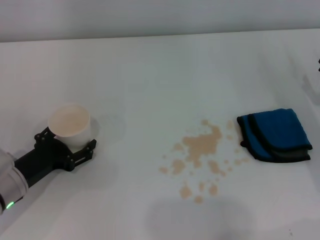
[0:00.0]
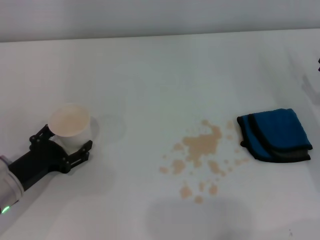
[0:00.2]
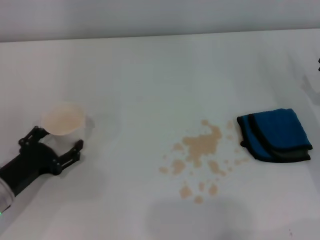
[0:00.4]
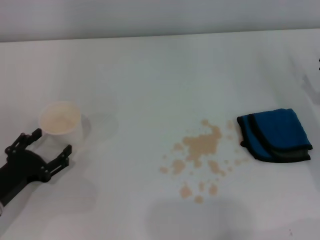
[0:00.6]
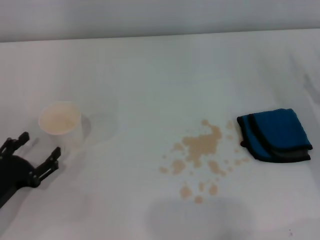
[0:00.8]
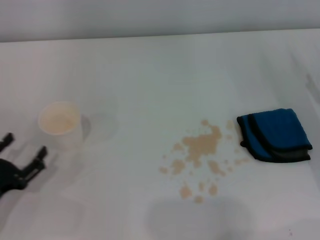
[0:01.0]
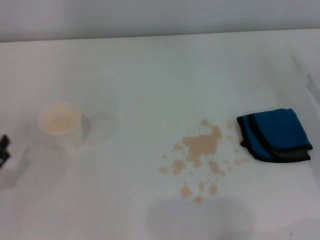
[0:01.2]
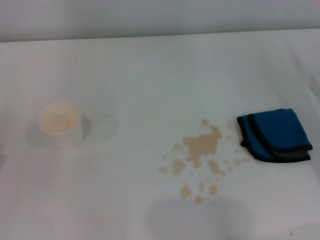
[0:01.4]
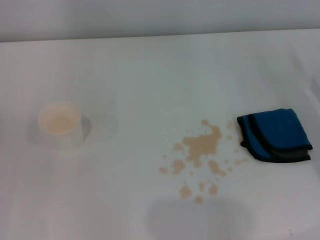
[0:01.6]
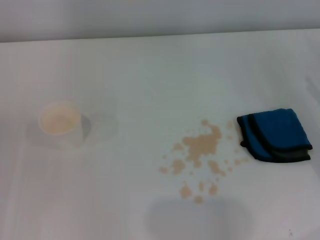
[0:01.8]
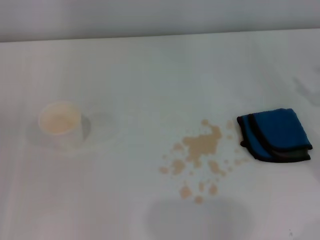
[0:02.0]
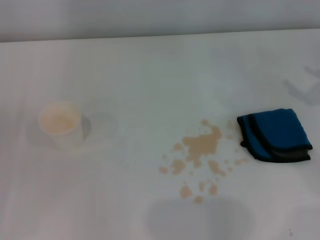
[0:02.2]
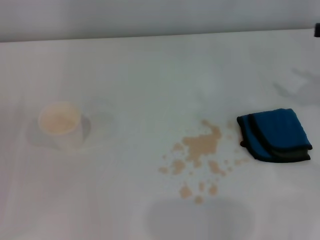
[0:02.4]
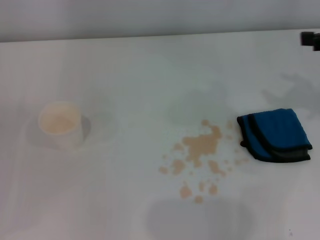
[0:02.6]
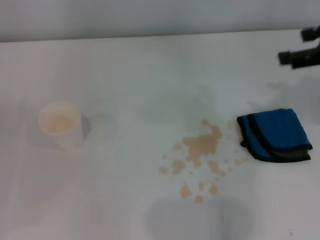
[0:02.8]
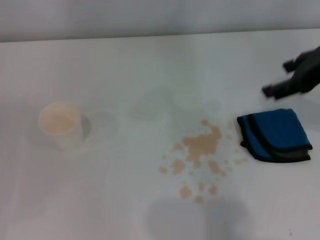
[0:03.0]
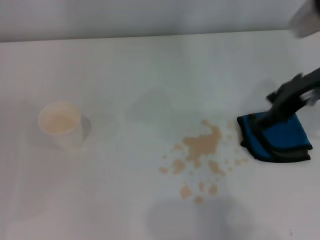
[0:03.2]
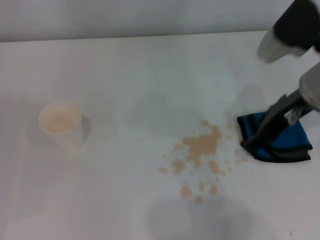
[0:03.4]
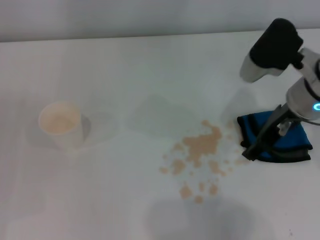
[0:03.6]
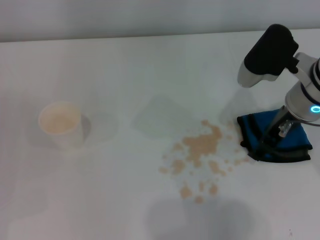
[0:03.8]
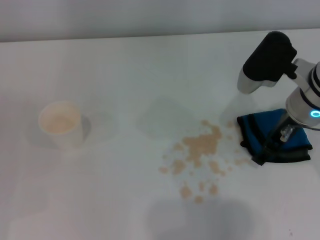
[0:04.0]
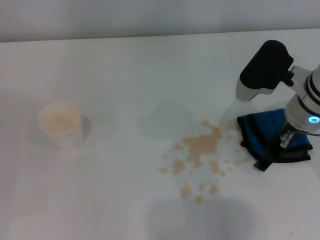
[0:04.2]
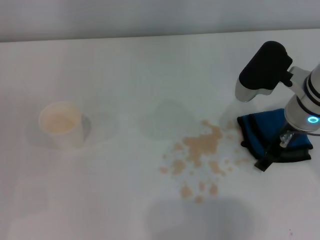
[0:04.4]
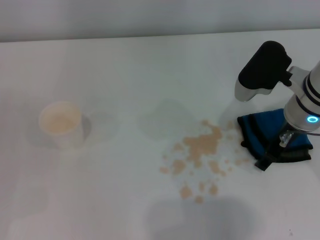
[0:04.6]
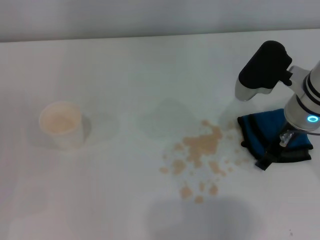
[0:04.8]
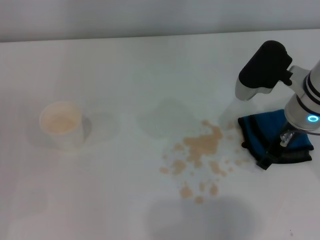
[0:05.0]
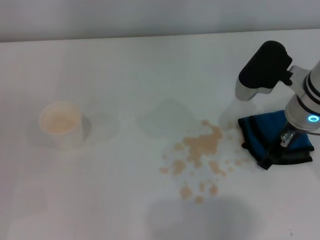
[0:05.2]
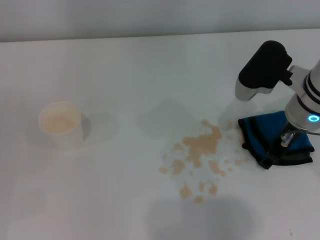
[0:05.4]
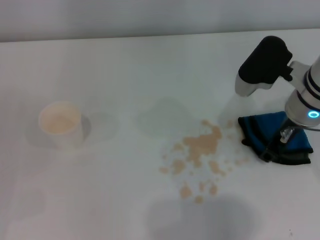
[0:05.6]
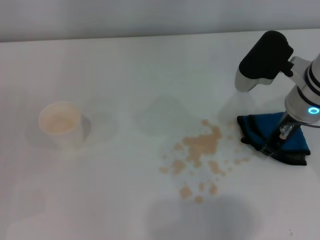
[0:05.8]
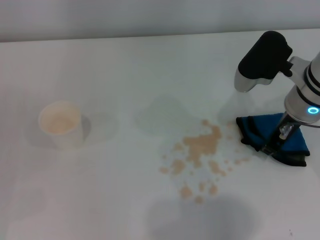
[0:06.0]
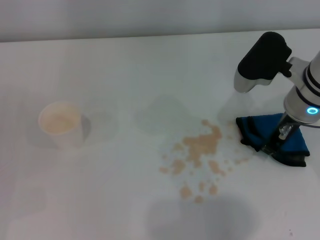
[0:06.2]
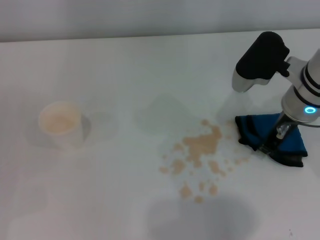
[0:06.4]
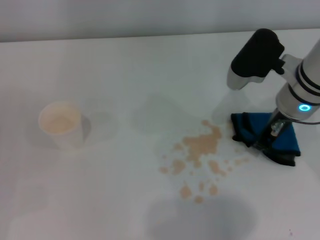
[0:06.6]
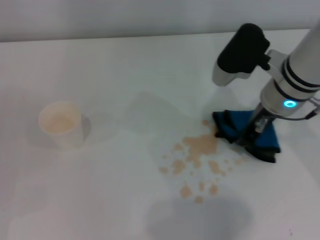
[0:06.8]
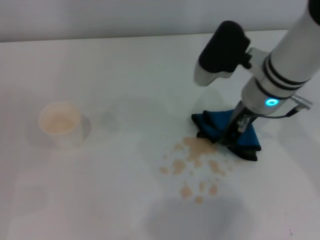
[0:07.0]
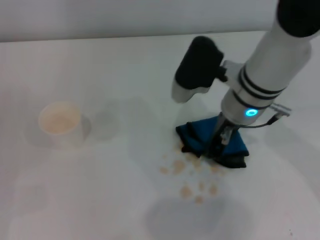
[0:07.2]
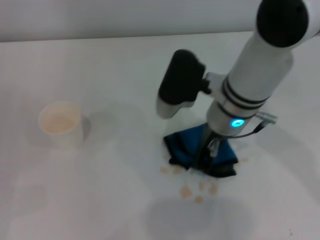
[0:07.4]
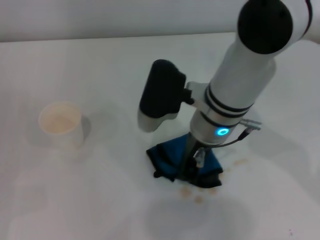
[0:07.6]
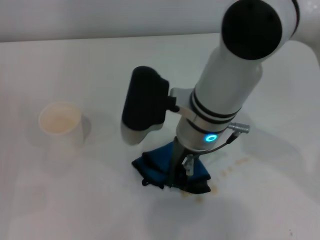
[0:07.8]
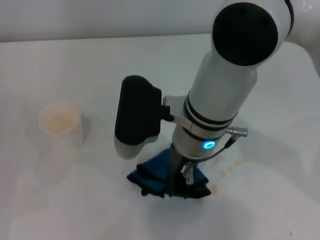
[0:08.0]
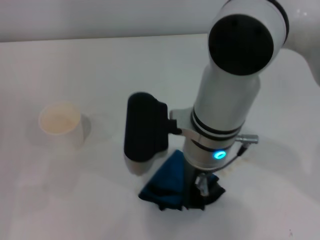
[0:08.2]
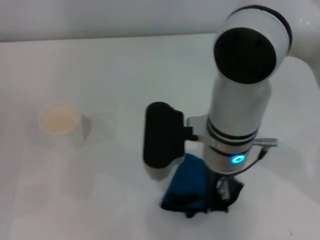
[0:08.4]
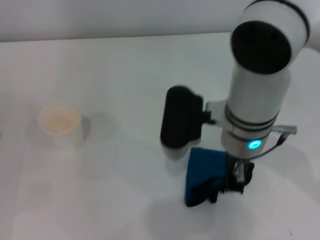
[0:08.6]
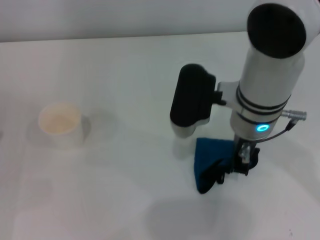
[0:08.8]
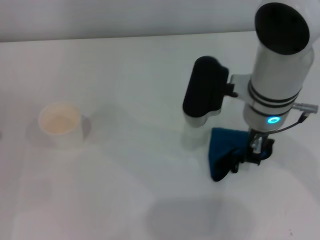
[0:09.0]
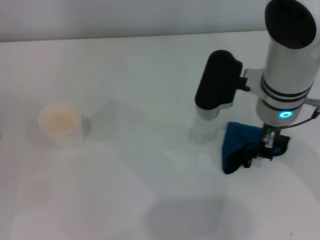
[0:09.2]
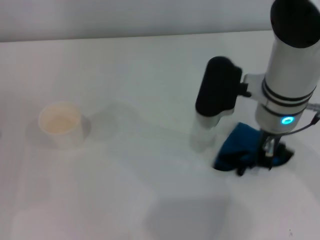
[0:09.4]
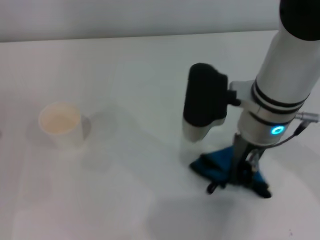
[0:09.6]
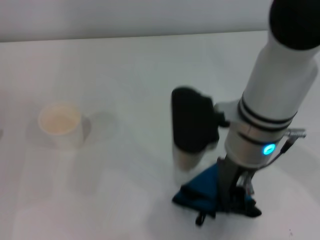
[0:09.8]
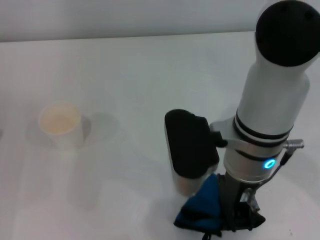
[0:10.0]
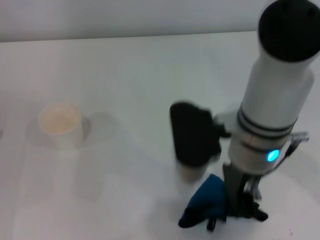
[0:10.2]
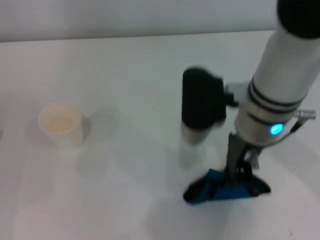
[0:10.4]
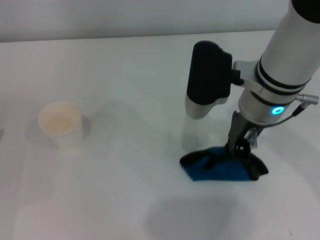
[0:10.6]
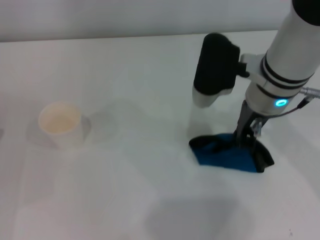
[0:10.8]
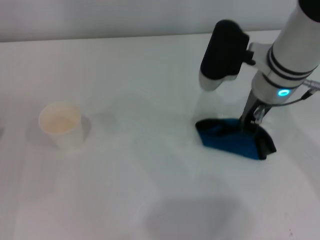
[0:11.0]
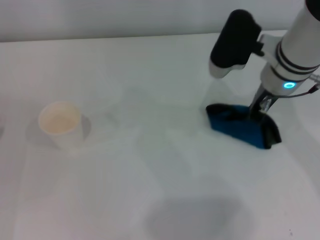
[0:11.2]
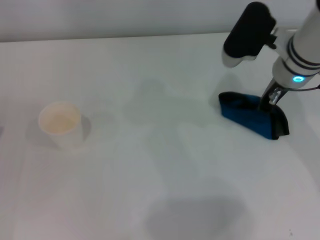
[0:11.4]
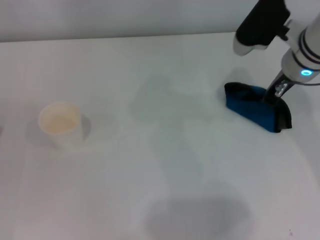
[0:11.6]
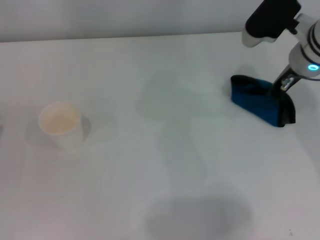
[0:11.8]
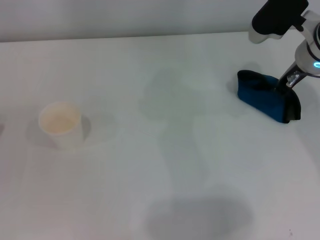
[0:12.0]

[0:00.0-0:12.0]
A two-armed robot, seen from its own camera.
Step, 0:00.0 to 0:05.8: Grasp the rag with the right gripper.
0:00.0 to 0:01.6: The left gripper heads to the left and backward, covering some 15 cm.
0:01.6 to 0:03.0: The right gripper shifts about 20 cm upward and to the left.
0:03.0 to 0:04.4: The right gripper travels downward and to the left by about 15 cm.
0:04.4 to 0:06.0: The right gripper closes its fingers.
0:06.0 to 0:07.6: The right gripper travels to the left by approximately 15 cm.
0:07.6 to 0:09.0: The right gripper heads to the right, covering approximately 5 cm.
0:10.4 to 0:12.0: The right gripper shifts about 15 cm to the right and forward.

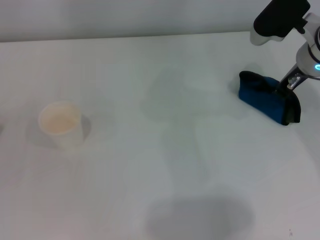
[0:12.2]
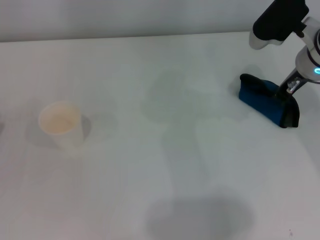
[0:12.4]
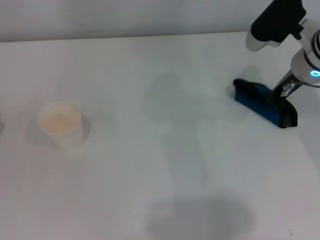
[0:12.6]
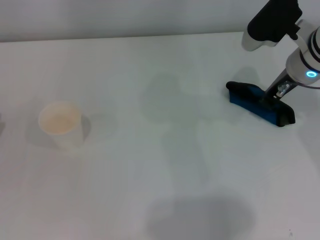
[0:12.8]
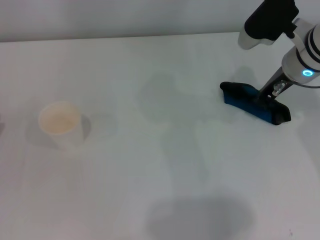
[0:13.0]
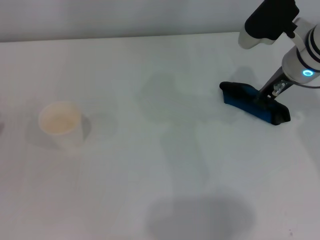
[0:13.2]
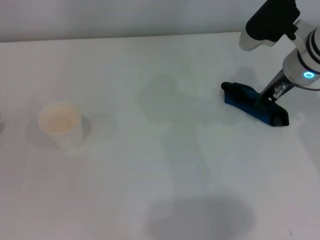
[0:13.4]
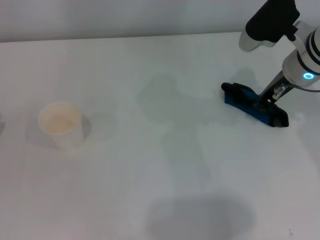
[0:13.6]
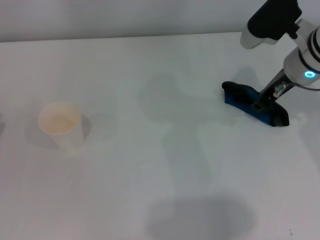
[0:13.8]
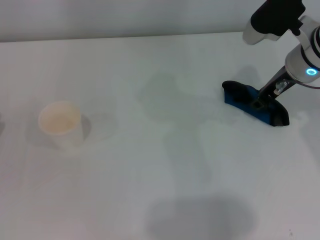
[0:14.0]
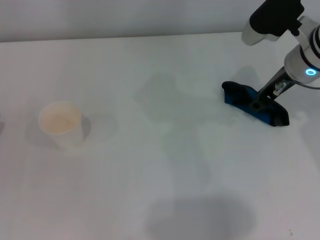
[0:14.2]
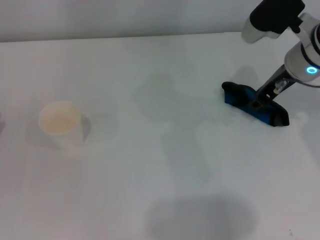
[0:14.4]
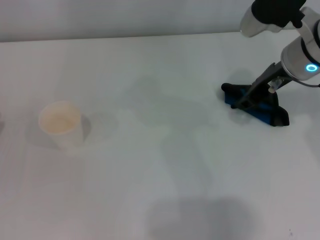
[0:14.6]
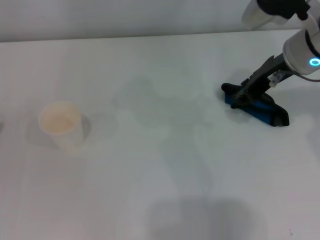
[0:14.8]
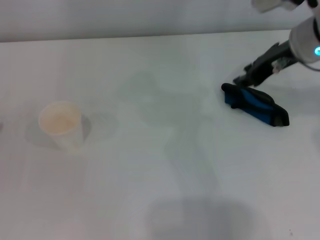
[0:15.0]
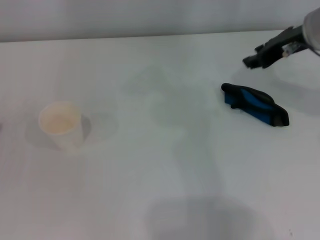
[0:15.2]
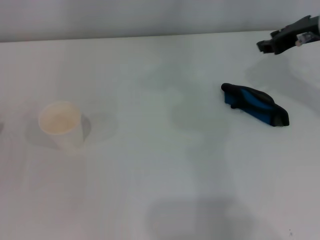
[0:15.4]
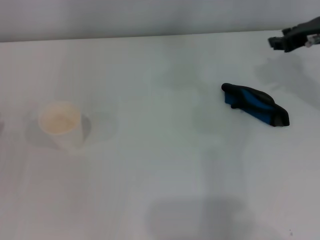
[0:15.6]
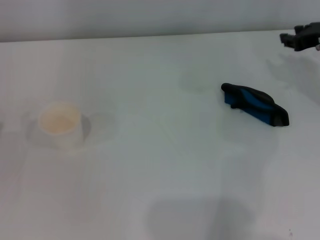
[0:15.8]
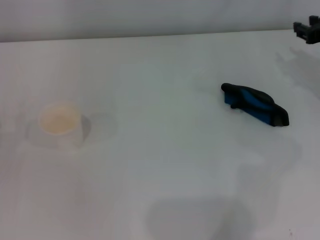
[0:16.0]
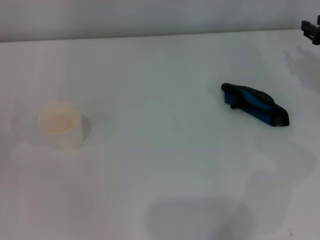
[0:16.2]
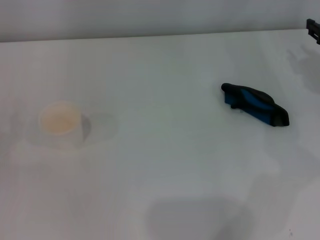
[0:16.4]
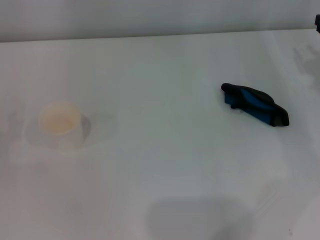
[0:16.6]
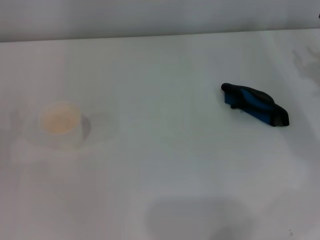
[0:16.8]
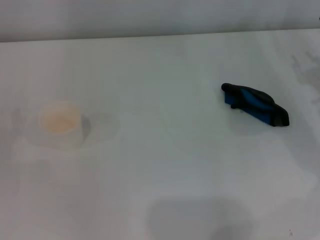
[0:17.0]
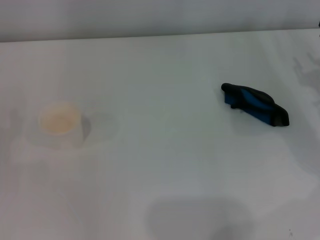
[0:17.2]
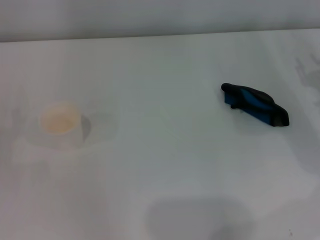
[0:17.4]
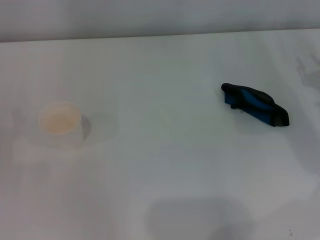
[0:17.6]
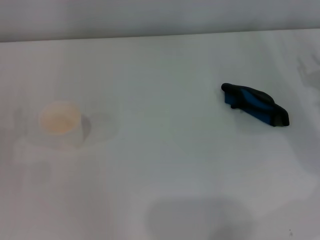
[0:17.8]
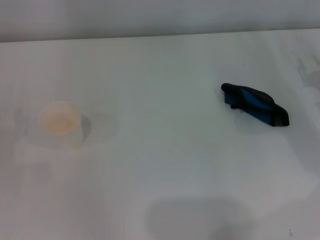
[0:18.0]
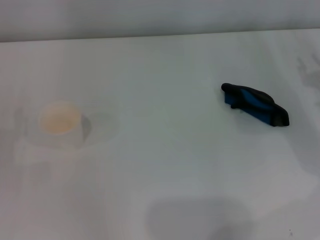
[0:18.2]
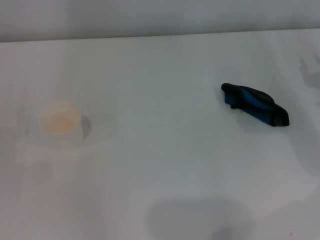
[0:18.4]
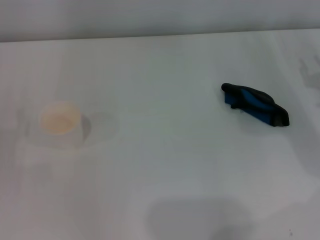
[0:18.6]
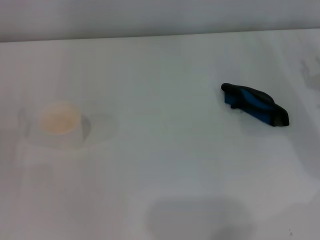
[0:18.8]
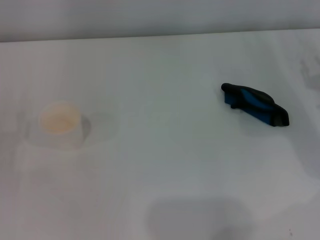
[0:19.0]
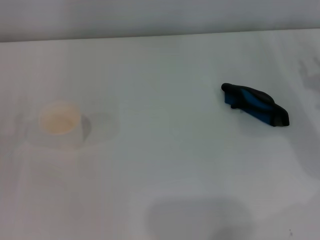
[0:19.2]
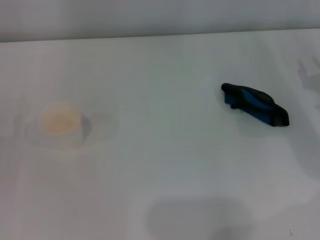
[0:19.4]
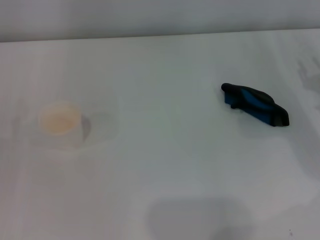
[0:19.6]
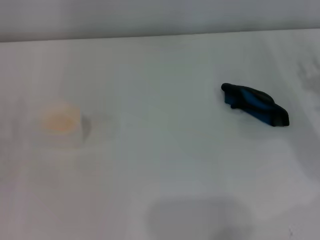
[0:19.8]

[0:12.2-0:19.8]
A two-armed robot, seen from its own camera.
Step, 0:14.0 to 0:14.6: Place the rag on the table with the right gripper.
0:12.2 to 0:13.8: The grippers move only a little.
0:13.8 to 0:15.2: The right gripper travels upward by about 5 cm.
0:15.2 to 0:16.8: The right gripper moves to the right, downward and backward, some 15 cm.

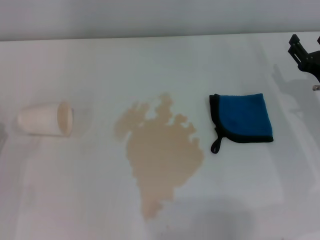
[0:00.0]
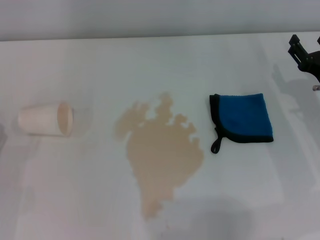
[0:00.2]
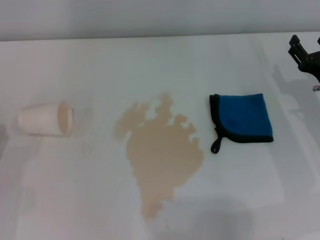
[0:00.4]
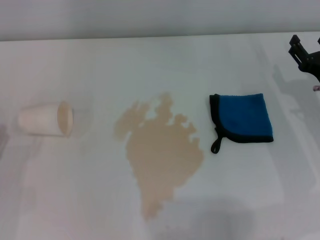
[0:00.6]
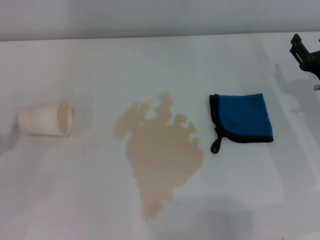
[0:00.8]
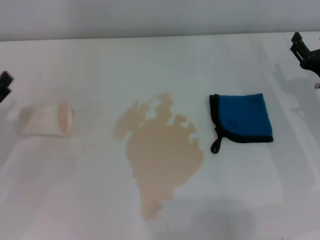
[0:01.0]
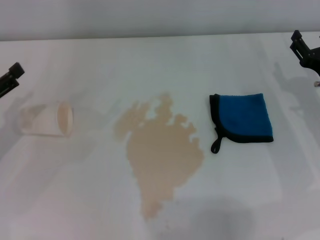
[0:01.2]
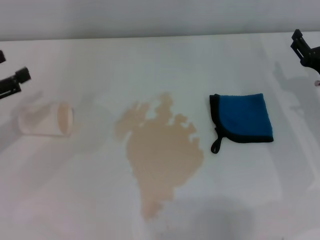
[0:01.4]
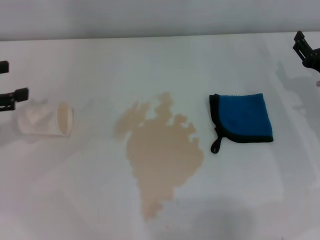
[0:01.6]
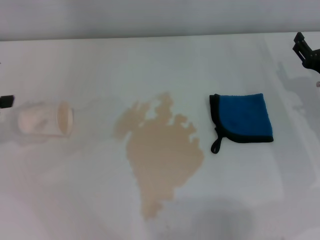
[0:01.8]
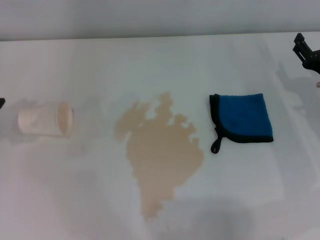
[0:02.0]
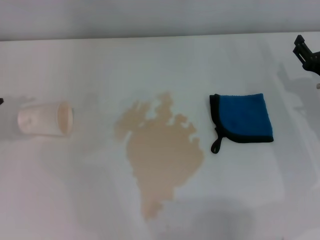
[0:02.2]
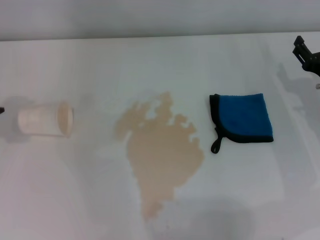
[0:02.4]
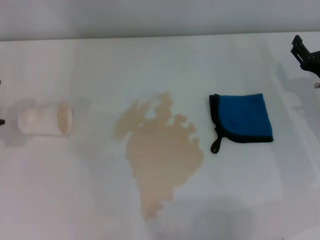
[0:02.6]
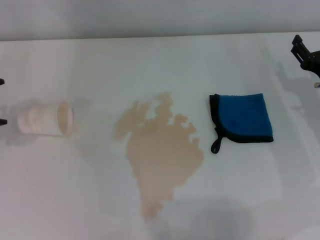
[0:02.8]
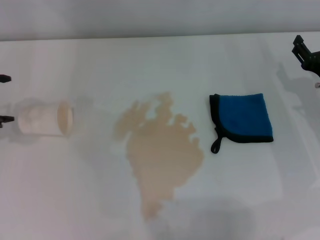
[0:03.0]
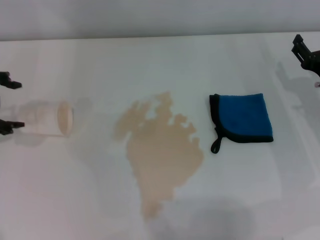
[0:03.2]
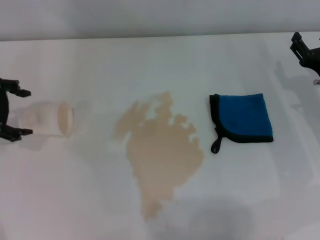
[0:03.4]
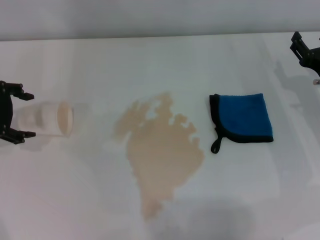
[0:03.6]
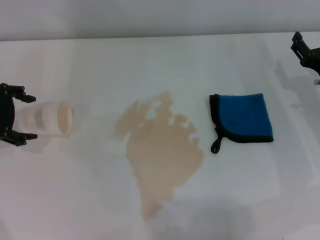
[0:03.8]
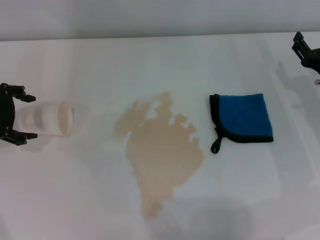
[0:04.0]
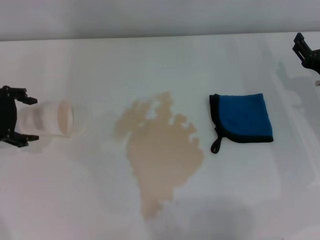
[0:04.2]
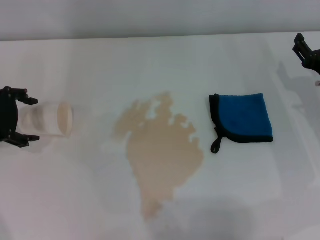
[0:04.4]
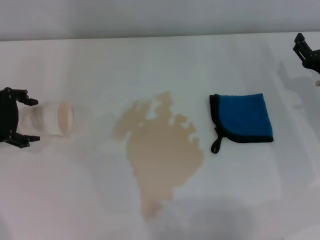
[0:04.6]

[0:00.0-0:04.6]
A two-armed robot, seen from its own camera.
0:00.0 to 0:01.6: The left gripper heads upward and forward, covering approximately 20 cm.
0:01.6 to 0:03.0: The left gripper changes place by about 5 cm.
0:03.0 to 0:04.6: The left gripper goes roughly 5 cm downward.